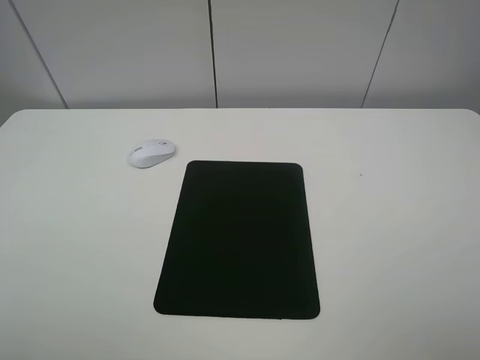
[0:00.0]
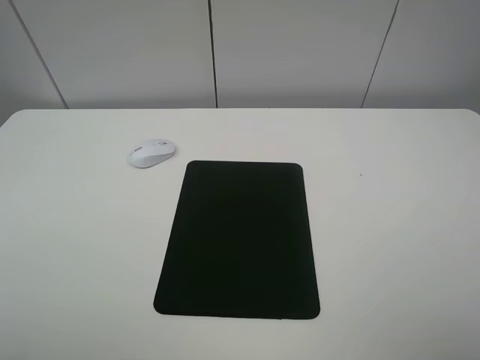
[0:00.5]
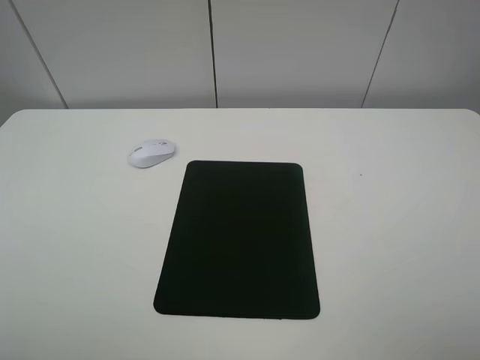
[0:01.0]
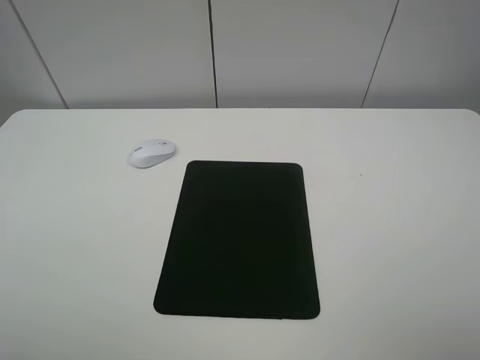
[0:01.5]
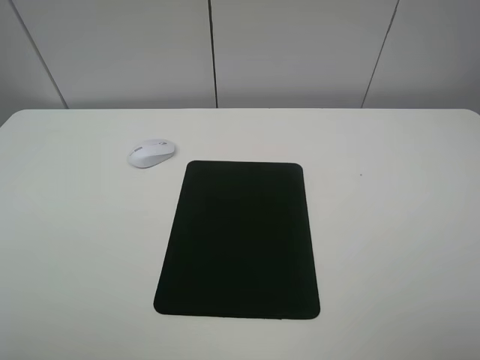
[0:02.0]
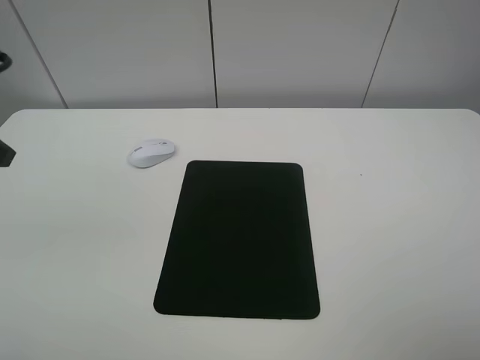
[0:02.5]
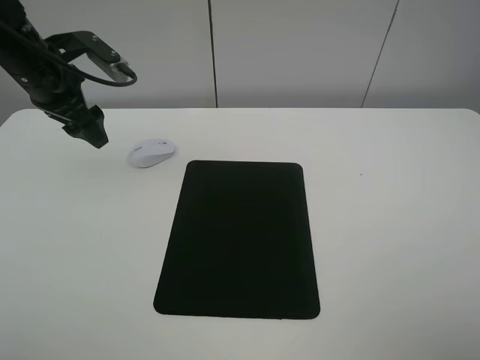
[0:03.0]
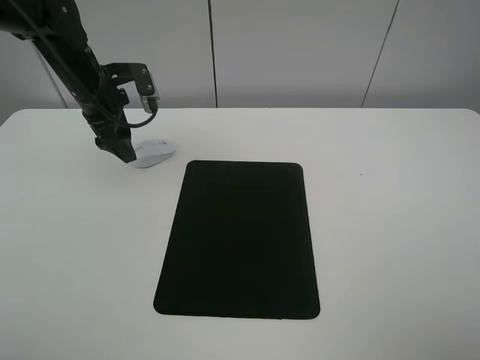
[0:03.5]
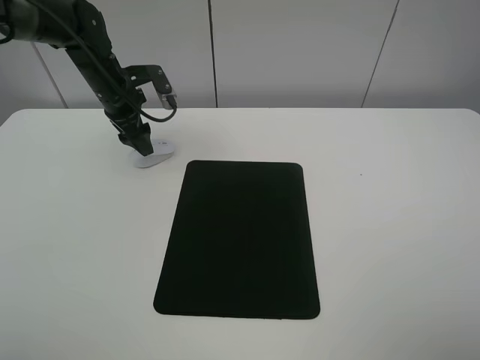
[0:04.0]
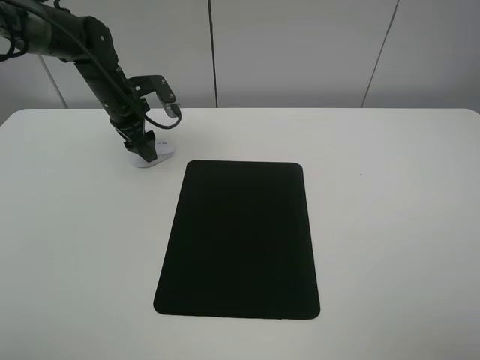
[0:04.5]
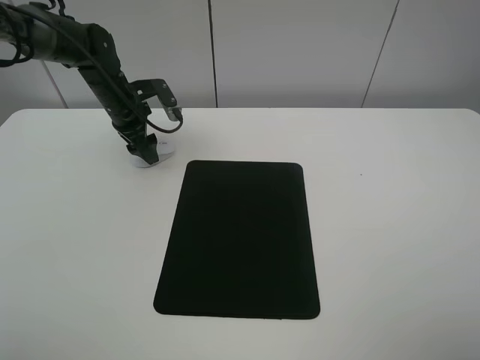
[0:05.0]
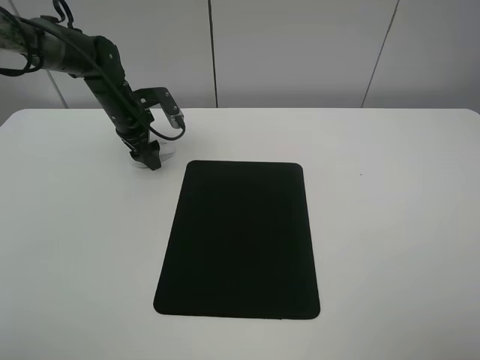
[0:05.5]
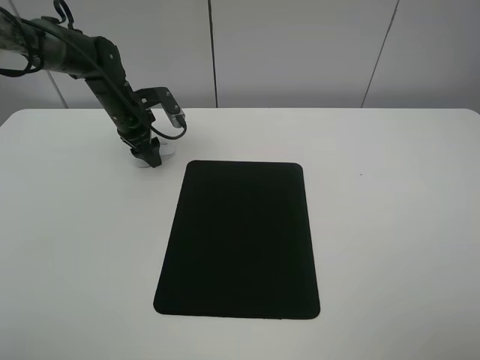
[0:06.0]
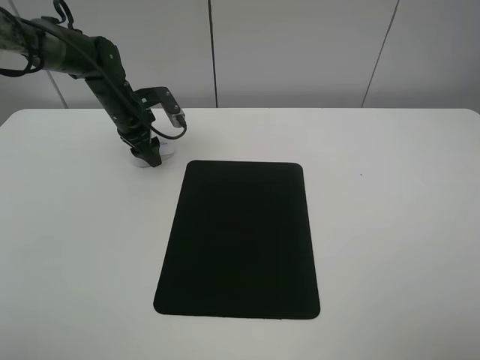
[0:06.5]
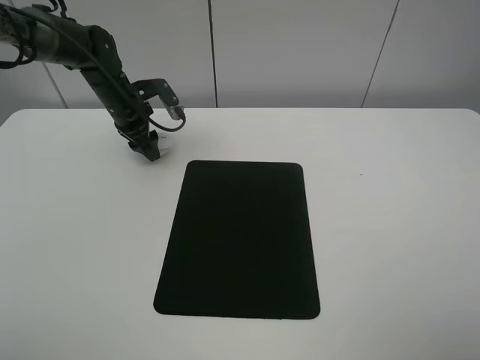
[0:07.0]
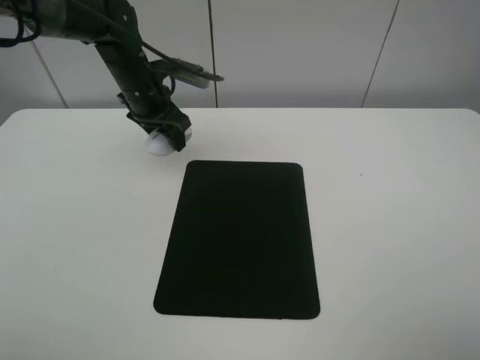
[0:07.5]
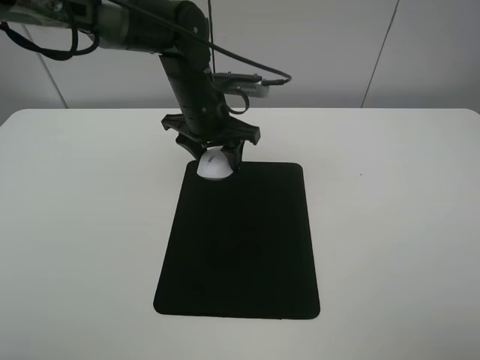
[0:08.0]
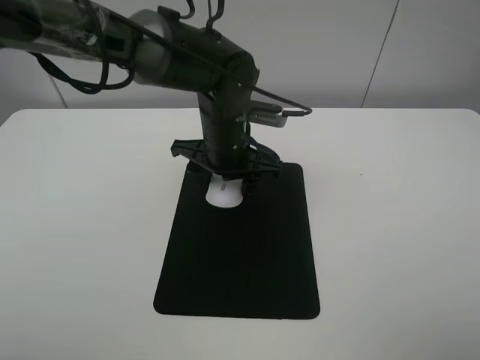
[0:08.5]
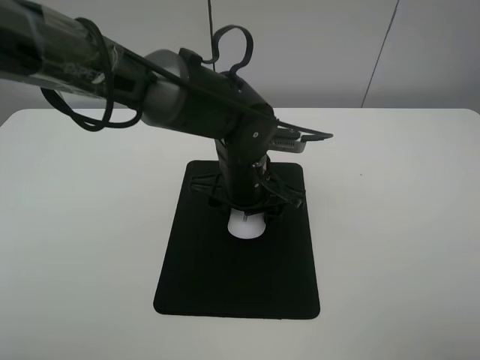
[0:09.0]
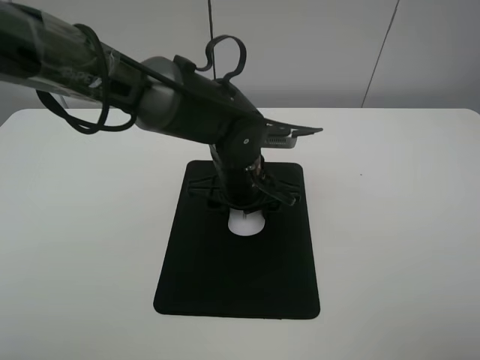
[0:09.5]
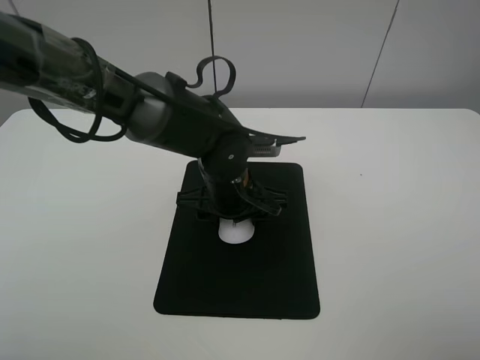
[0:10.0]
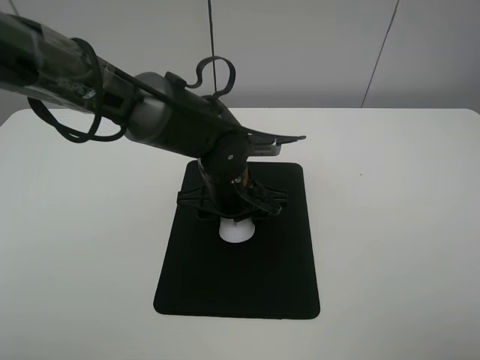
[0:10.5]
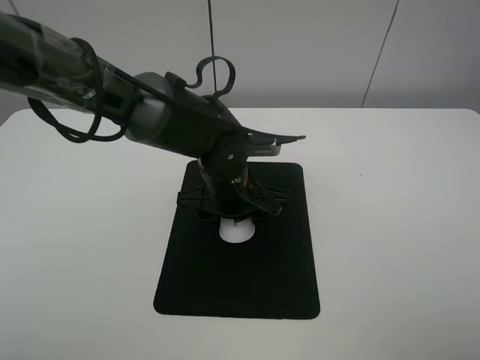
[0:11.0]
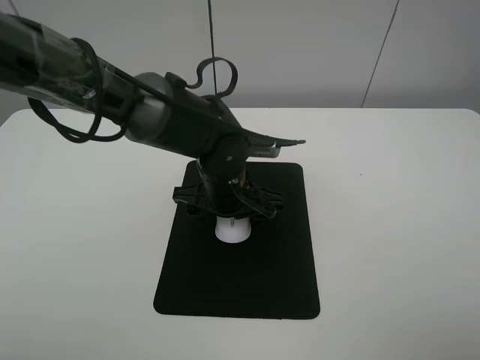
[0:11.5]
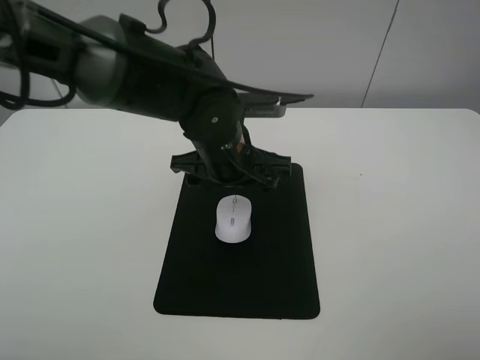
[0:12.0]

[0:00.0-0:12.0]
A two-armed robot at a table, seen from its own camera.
Step, 0:00.0 to 0:06.5: Grasp the mouse with the left gripper.
Step, 0:07.0 to 0:11.5: Place the mouse on the mouse mat with the left gripper.
0:02.0 to 0:04.0: The left gripper travels forward by approximately 40 cm.
0:04.0 to 0:06.0: The left gripper moves downward, approximately 5 cm, and closes.
0:06.0 to 0:08.0: The left gripper travels to the right, backward and upward by roughly 20 cm.
0:08.0 to 0:10.0: The left gripper travels backward and downward by some 10 cm.
0:10.0 to 0:12.0: The left gripper heads upward, covering approximately 5 cm, and opens.

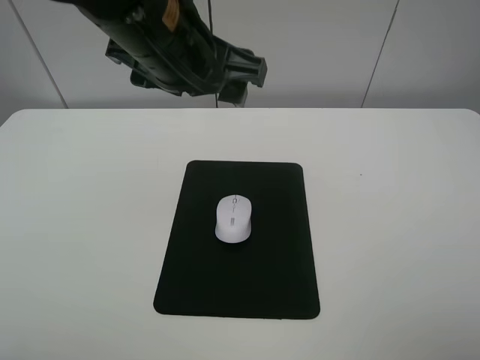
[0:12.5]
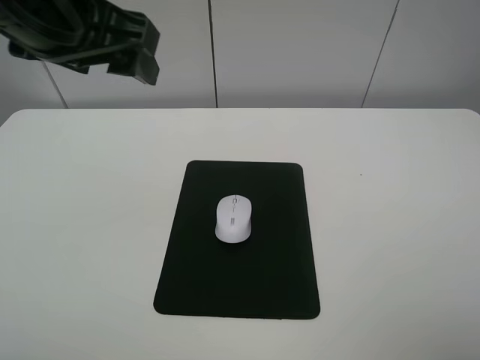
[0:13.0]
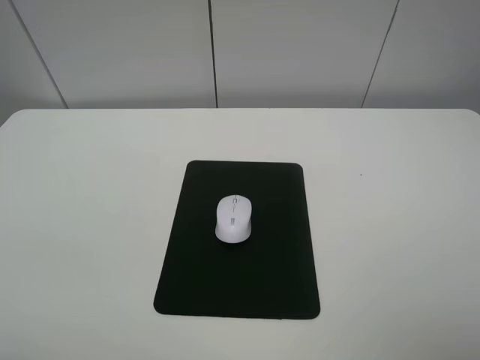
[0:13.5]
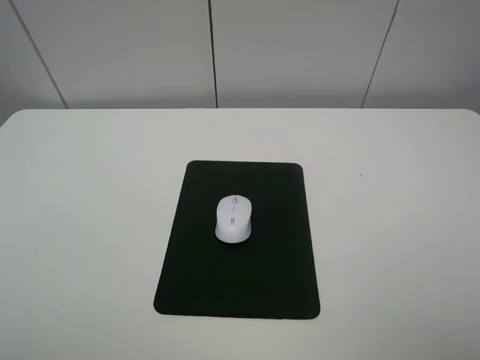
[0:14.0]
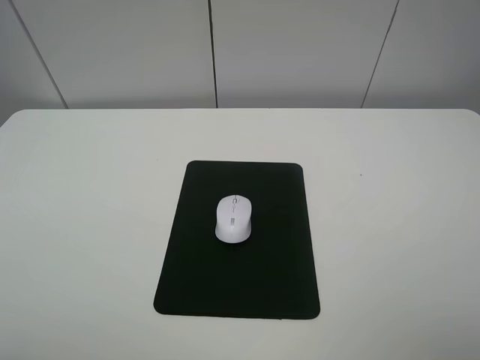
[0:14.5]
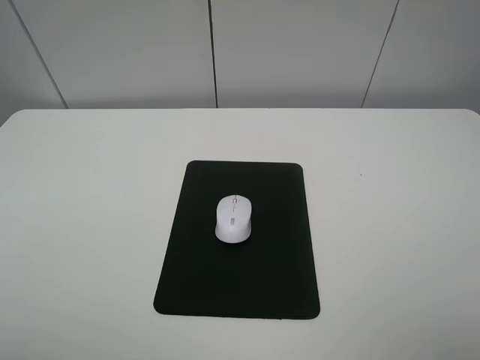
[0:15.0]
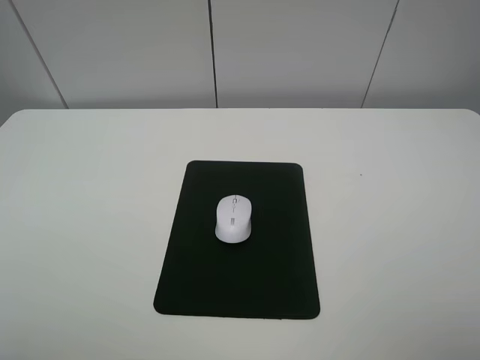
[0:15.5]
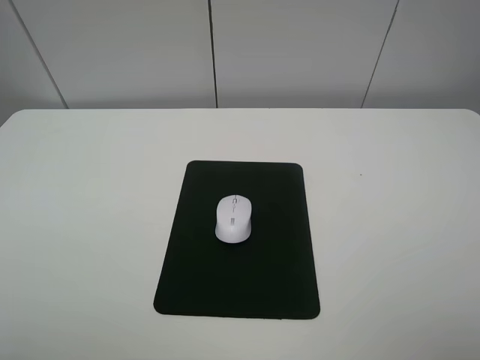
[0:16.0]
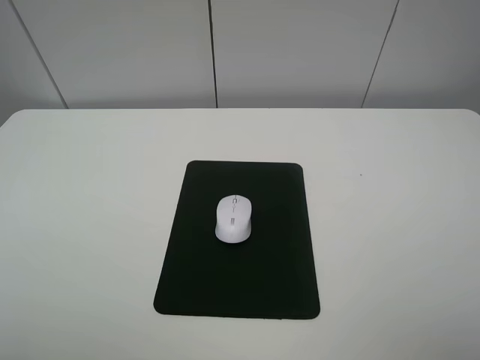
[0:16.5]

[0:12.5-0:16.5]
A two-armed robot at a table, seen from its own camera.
0:12.5 to 0:14.5: The left gripper travels to the left and backward by roughly 40 cm.

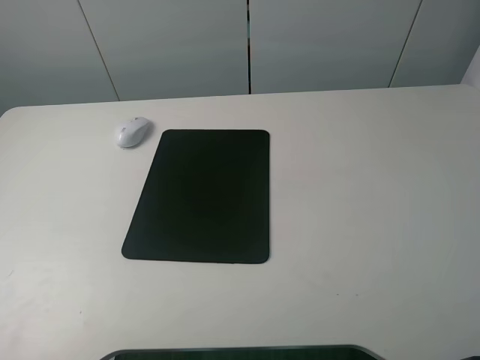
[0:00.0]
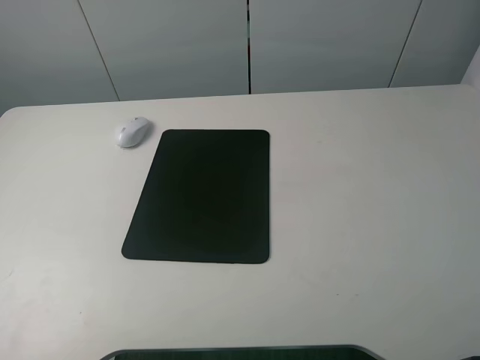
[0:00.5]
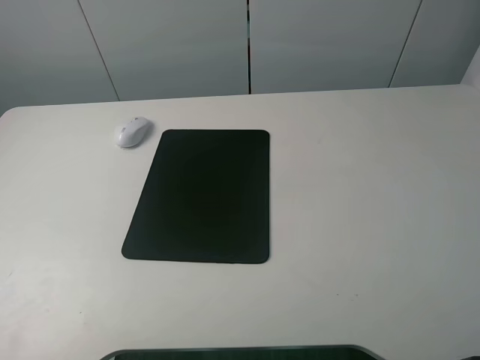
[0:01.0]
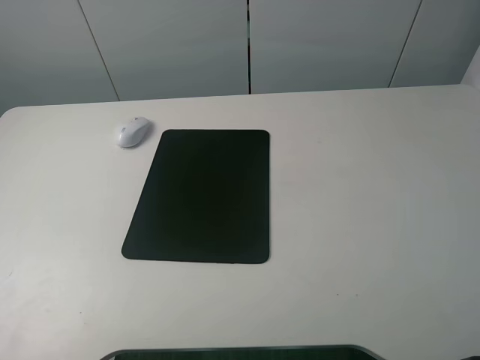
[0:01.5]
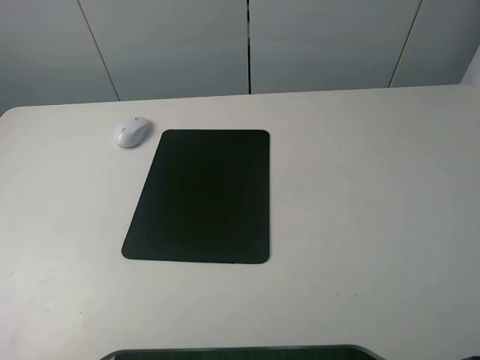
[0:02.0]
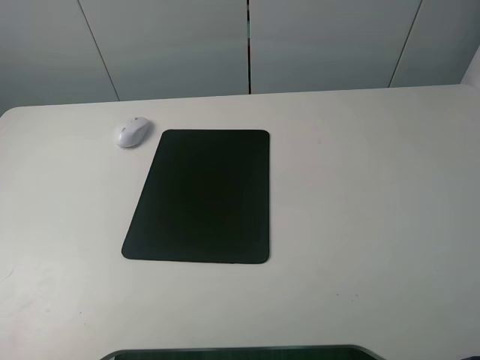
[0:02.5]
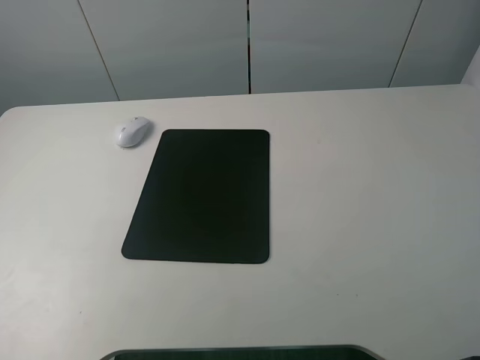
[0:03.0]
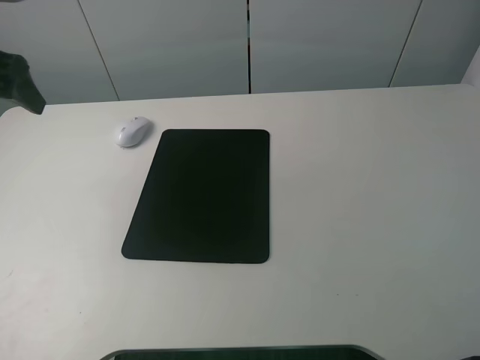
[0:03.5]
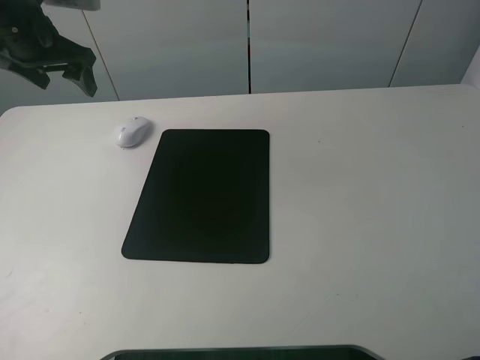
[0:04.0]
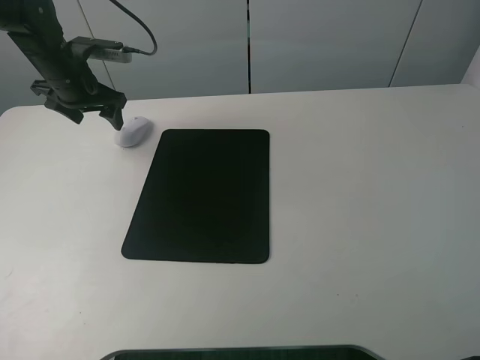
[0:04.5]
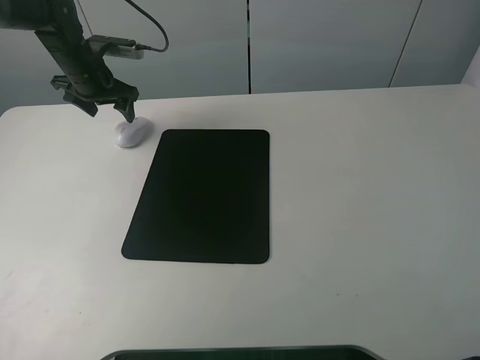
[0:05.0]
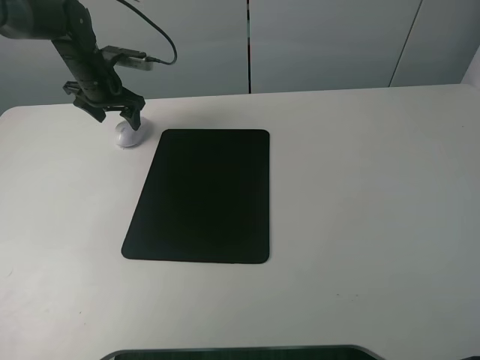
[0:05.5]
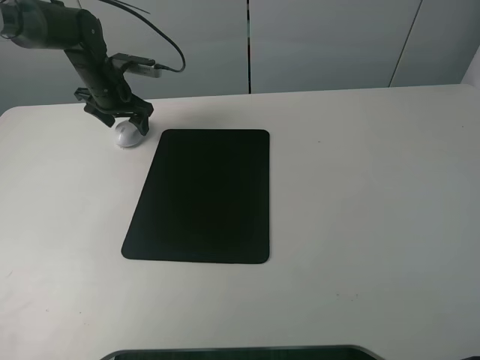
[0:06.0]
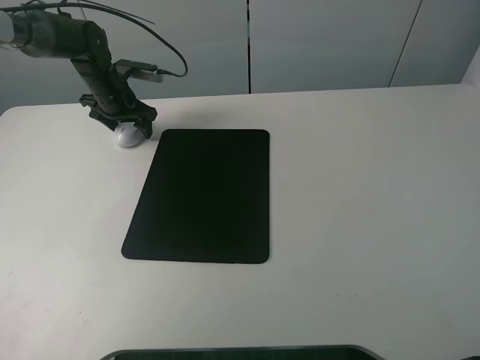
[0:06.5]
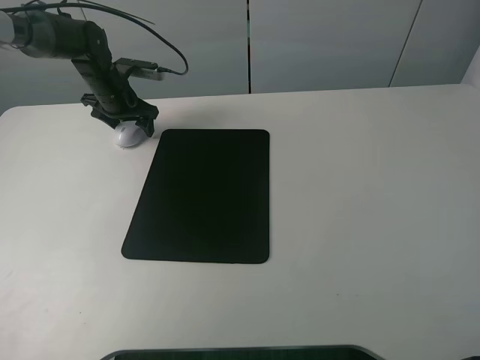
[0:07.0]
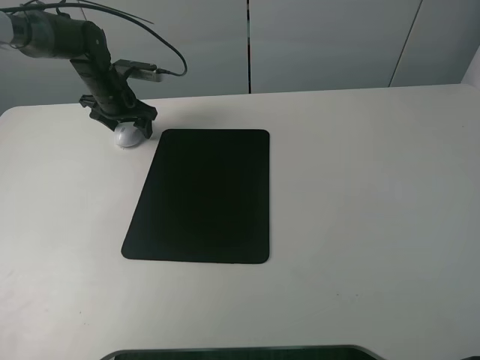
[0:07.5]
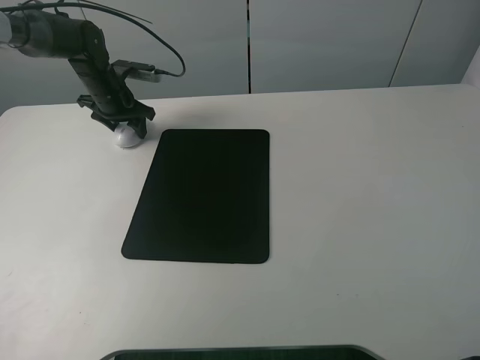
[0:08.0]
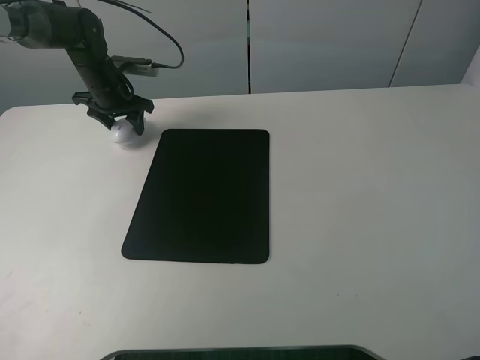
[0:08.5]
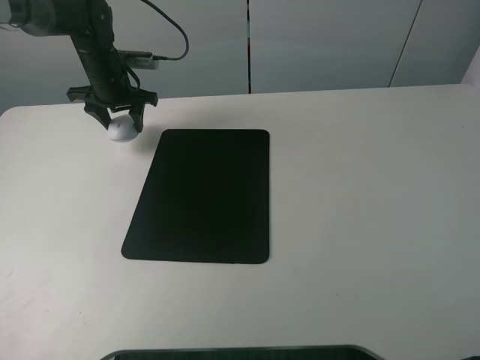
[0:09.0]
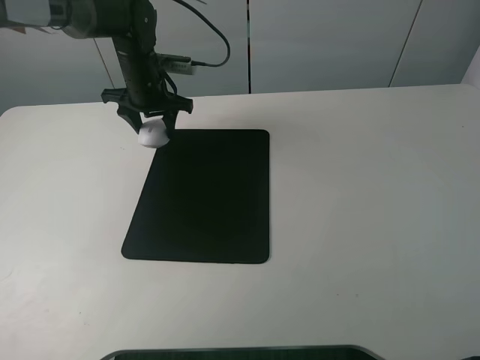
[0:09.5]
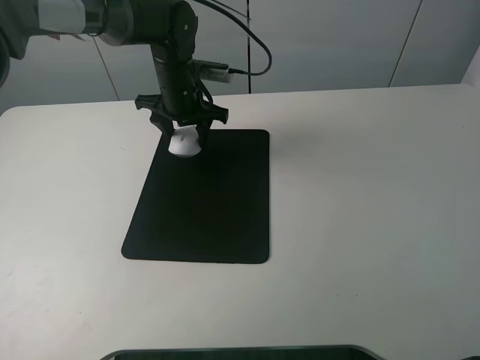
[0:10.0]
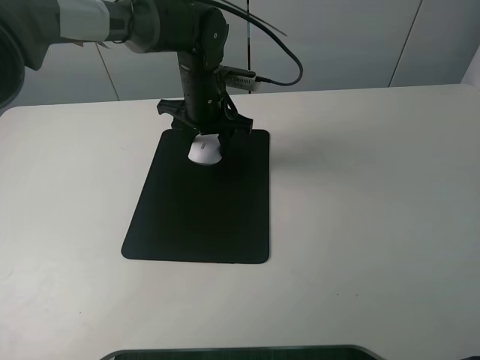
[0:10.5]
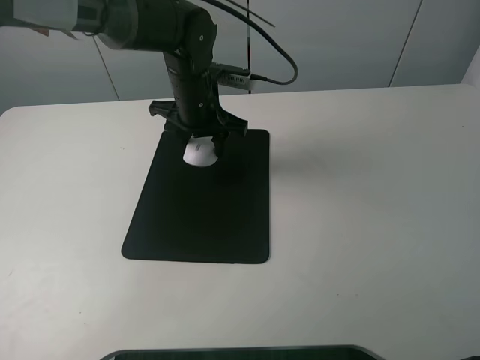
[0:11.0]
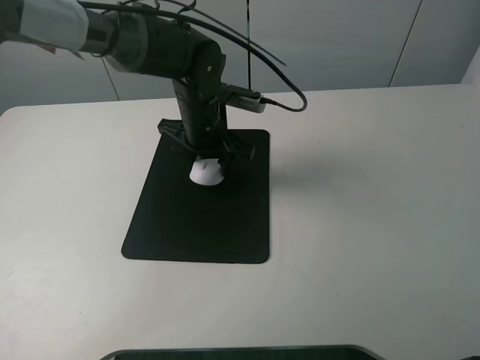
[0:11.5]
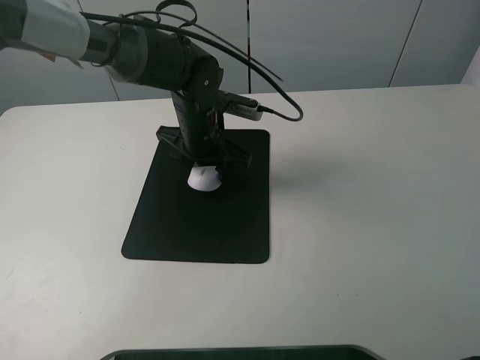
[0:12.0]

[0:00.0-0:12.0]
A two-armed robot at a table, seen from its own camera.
Step, 0:00.0 to 0:07.5: Grasp the mouse with the left gripper.
0:00.0 to 0:02.0: Both grippers stay put.
0:02.0 to 0:04.0: The left gripper goes roughly 40 cm forward.
0:04.0 to 0:06.0: The left gripper moves downward and forward, some 15 cm.
0:06.0 to 0:08.0: The left gripper closes up.
0:08.0 to 0:10.0: The left gripper travels to the right and backward by approximately 15 cm.
0:10.0 to 0:12.0: The left gripper heads backward, covering some 5 cm.
